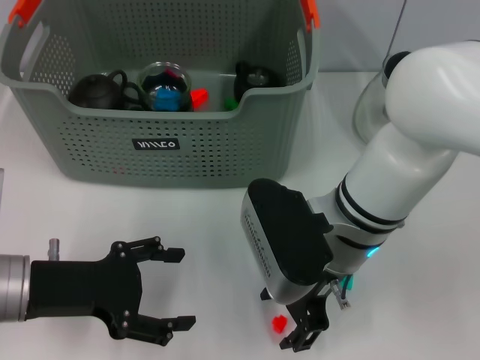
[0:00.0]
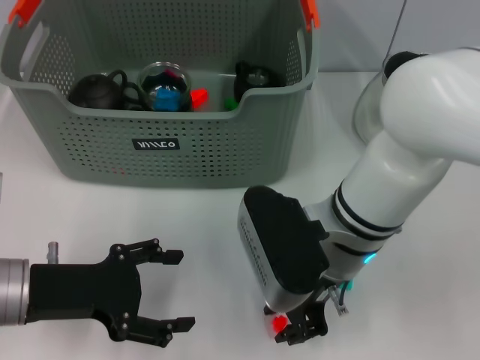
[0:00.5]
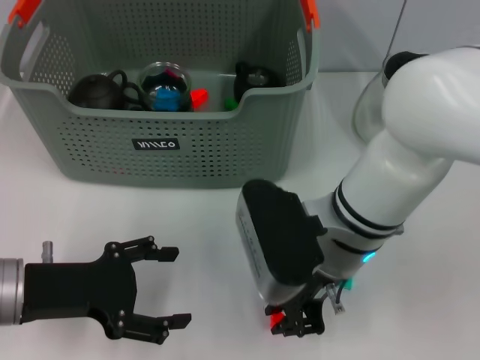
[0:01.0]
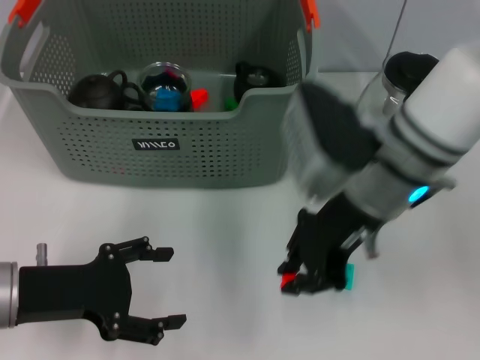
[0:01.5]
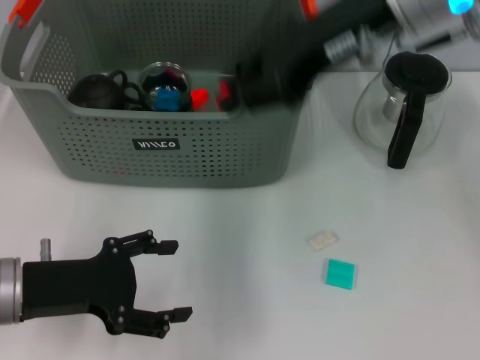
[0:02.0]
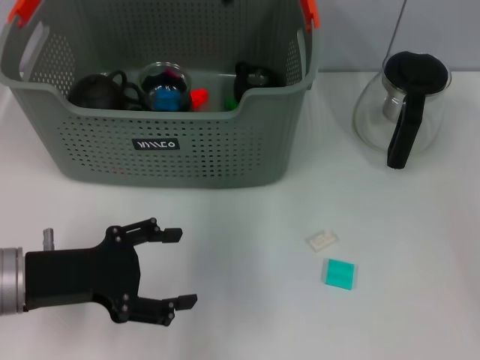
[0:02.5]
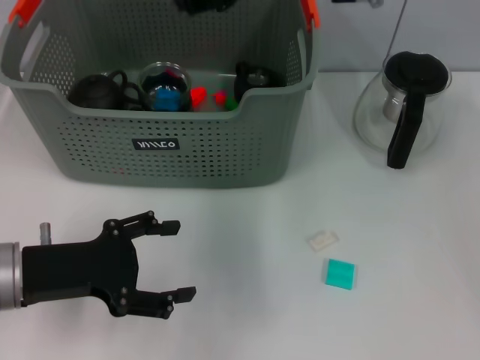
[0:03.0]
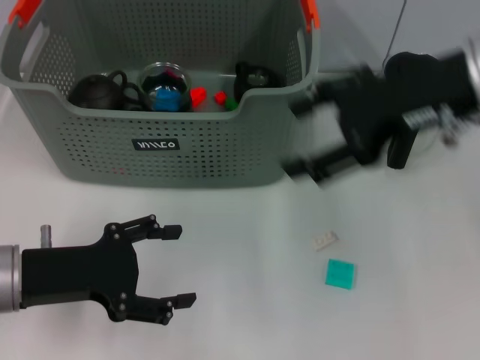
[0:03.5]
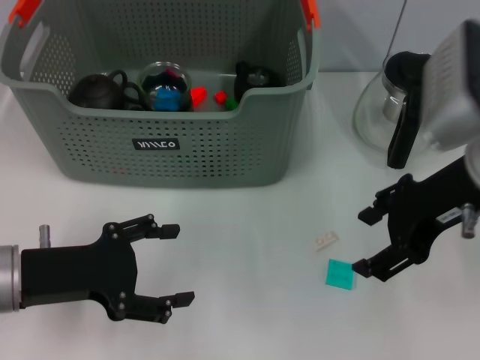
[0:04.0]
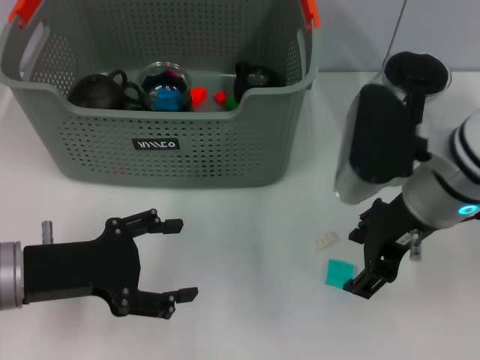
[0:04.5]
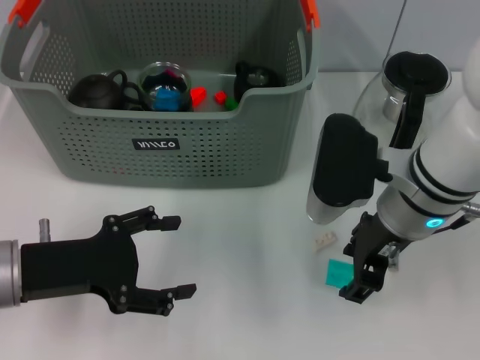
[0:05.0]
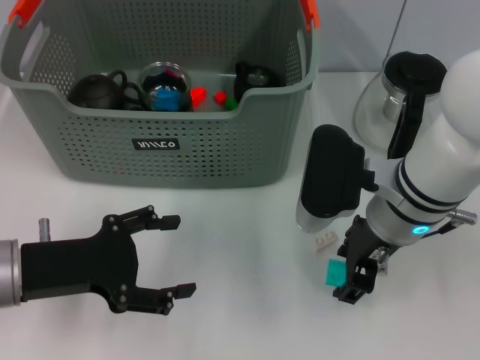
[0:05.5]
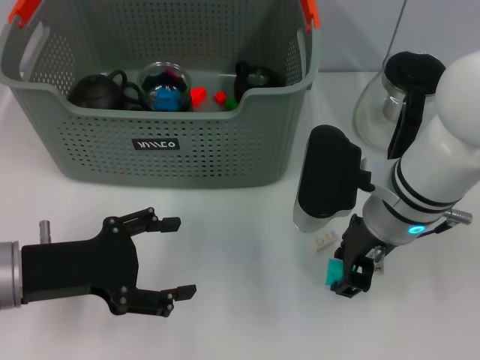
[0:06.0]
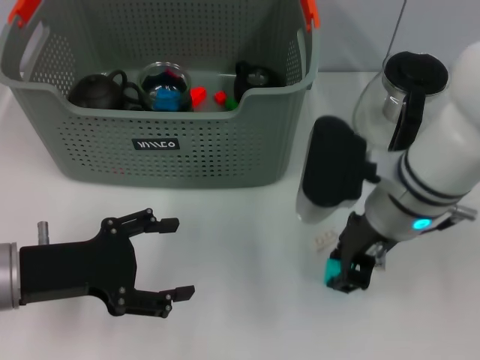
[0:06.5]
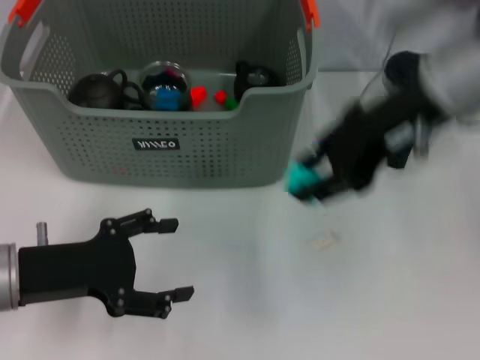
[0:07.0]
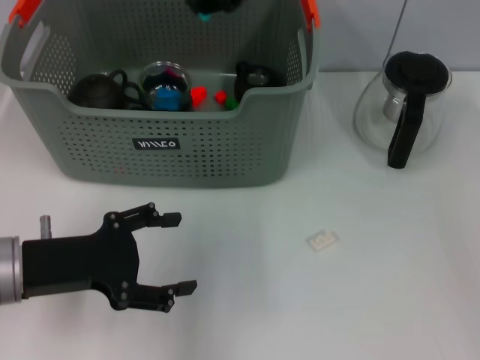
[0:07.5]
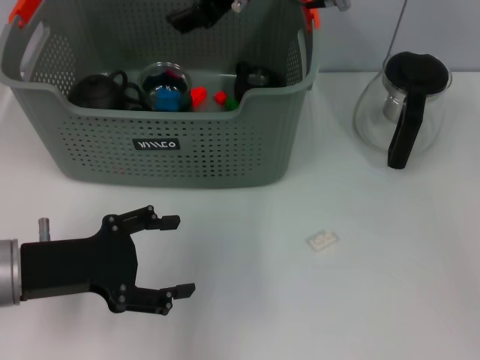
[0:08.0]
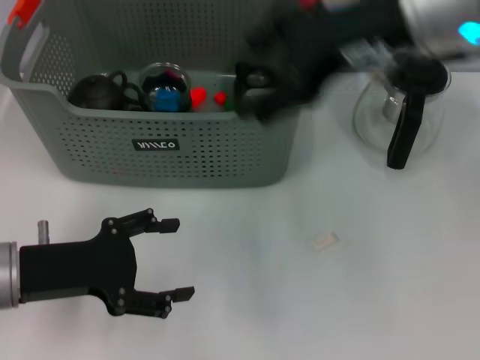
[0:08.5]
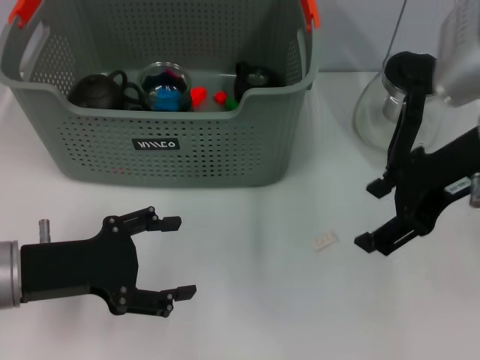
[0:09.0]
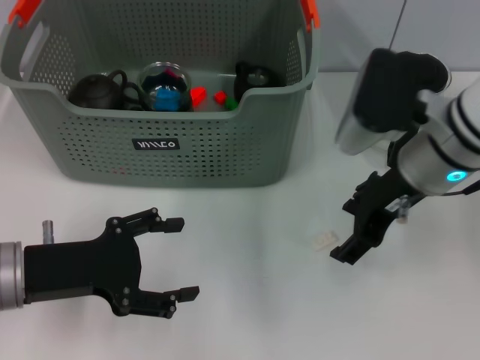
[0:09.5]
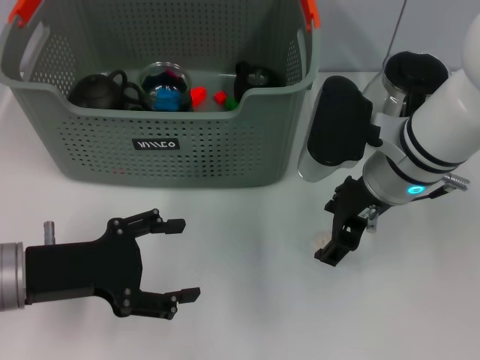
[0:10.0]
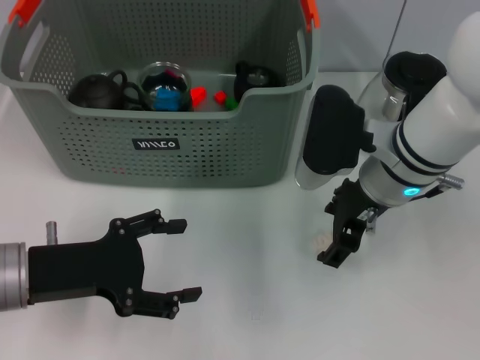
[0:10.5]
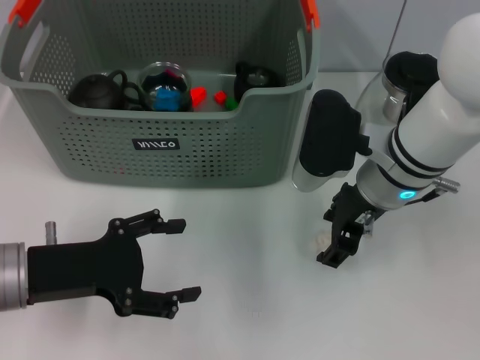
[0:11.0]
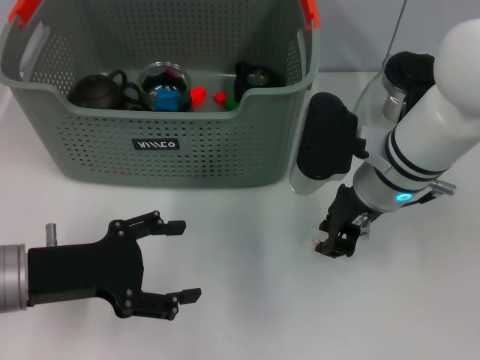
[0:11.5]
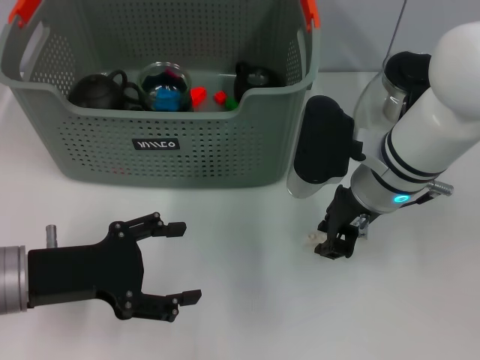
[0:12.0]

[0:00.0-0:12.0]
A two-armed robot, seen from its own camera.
Task of the whole recording: pick up the teacup on the table and place it into the storage bin, pick up the block on the table and place it into the storage bin.
Step, 0:01.0 to 0:02.5: Place the orange block in the storage box with right gripper.
Step, 0:03.0 to 0:06.0: Grasp the light blue block with right gripper.
Step, 0:06.5 to 0:07.5: Place the light blue block in the storage box with right gripper.
0:00.0 to 0:02.0: The right gripper moves upward, about 20 cm, and closes its fingers.
0:02.0 to 0:04.0: The right gripper goes about 15 cm downward, to the right and backward, and opens.
0:04.0 to 0:06.0: The right gripper goes about 10 cm downward and to the left.
0:06.0 to 0:08.0: The right gripper is displaced upward, forward and to the left by about 20 cm.
0:08.0 to 0:10.0: The right gripper shifts roughly 20 cm downward, backward and to the right, and opens.
0:10.0 to 0:12.0: The right gripper closes its fingers.

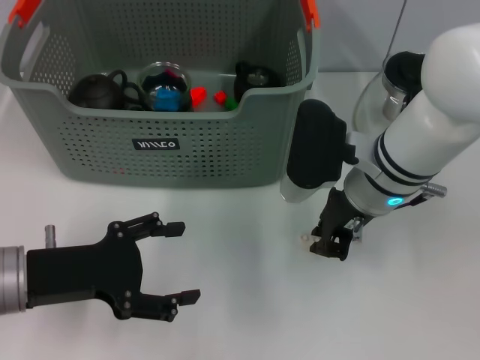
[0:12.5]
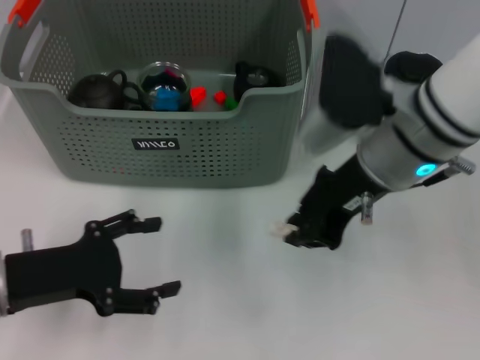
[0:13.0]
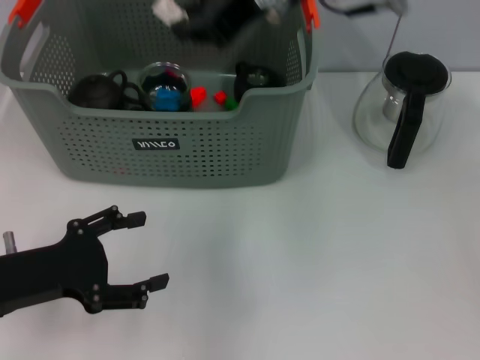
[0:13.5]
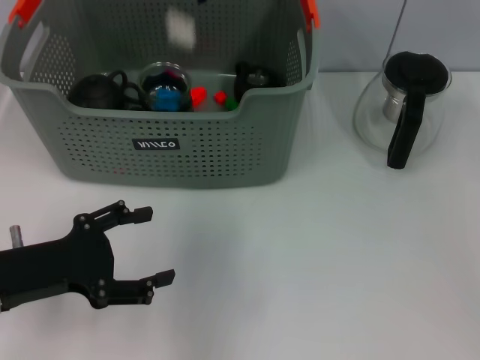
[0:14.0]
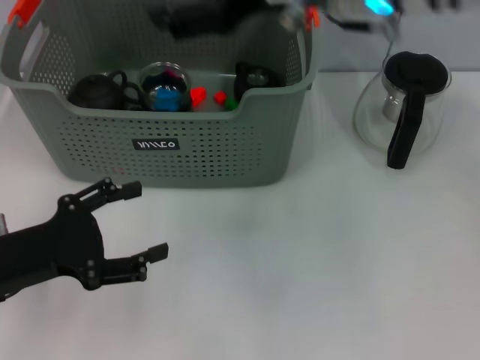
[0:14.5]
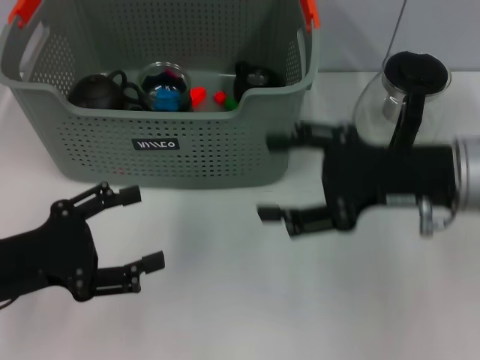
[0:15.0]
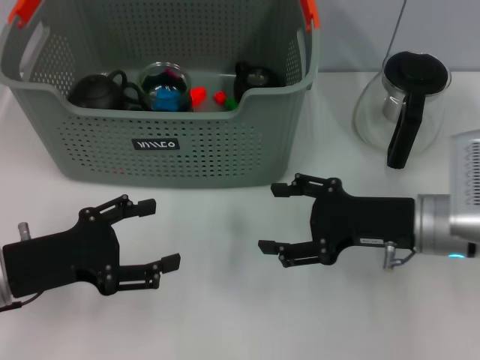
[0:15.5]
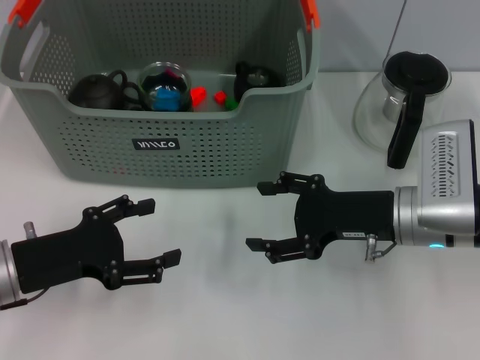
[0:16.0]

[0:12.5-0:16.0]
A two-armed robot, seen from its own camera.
Task of the whole recording: pick up the teacup on the table and place it into the storage bin, pick up the block on the table and place it into the storage bin.
Step, 0:12.5 to 0:14.0: Place the white block in the storage box with right gripper.
0:12.5 to 0:14.5: The right gripper shifts roughly 15 cm upward, and opens.
0:14.5 to 0:16.0: The right gripper is displaced downward and to the right by about 20 cm.
